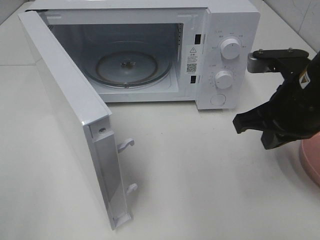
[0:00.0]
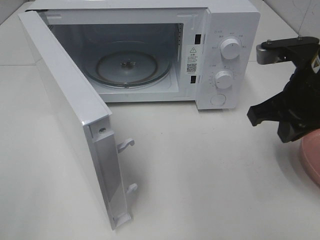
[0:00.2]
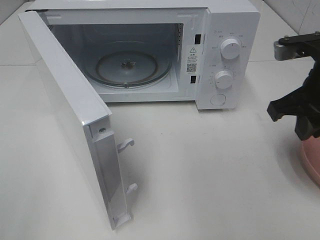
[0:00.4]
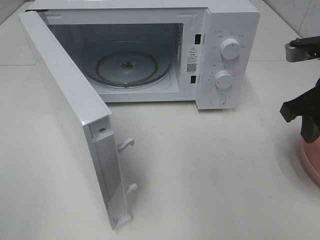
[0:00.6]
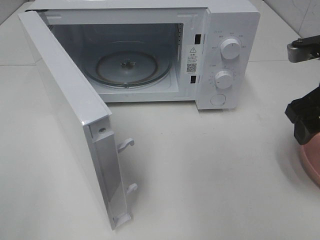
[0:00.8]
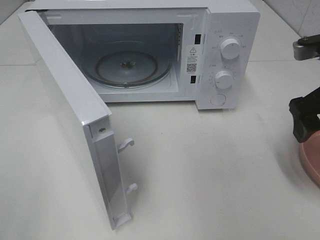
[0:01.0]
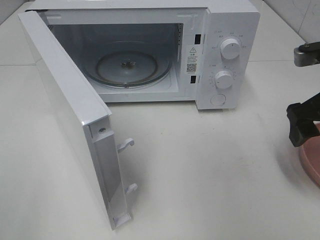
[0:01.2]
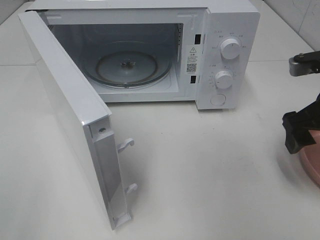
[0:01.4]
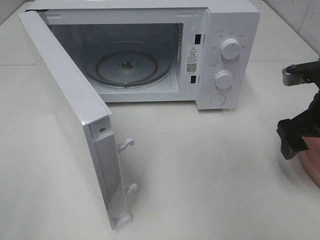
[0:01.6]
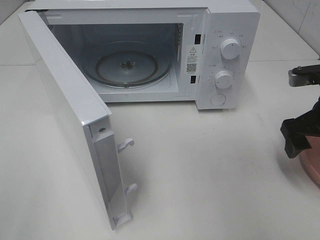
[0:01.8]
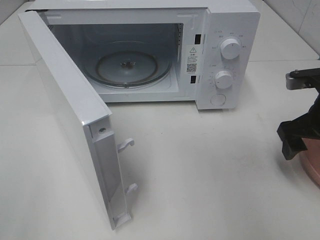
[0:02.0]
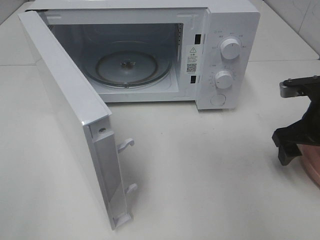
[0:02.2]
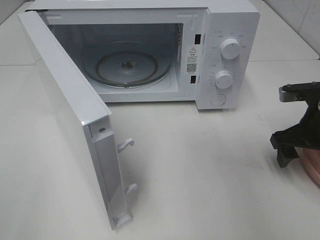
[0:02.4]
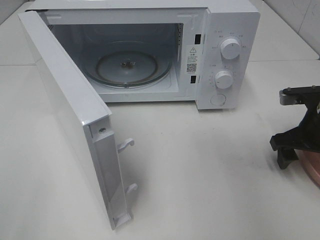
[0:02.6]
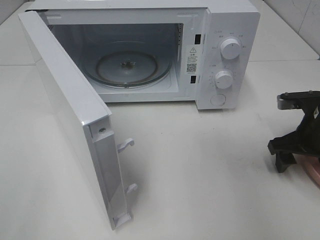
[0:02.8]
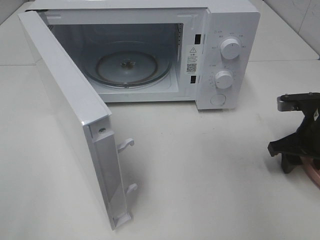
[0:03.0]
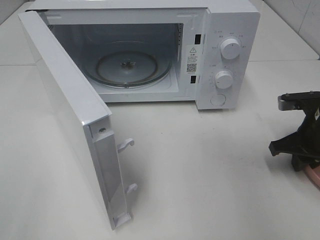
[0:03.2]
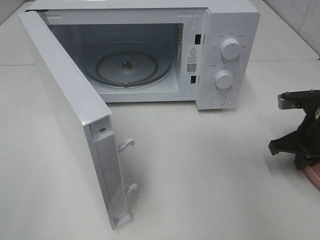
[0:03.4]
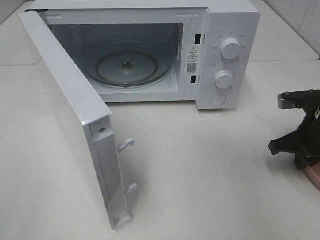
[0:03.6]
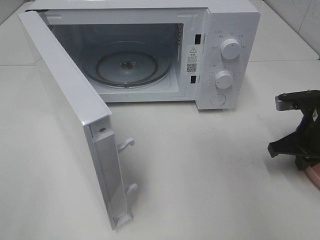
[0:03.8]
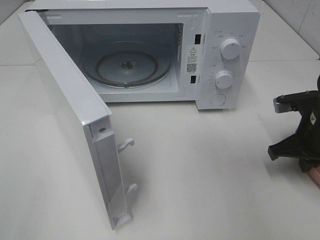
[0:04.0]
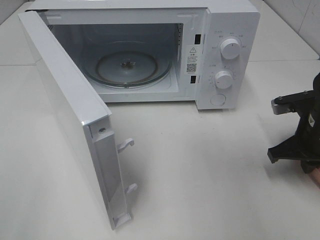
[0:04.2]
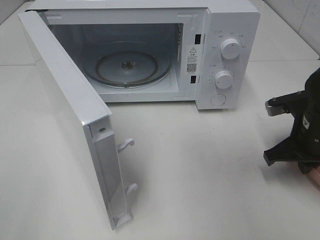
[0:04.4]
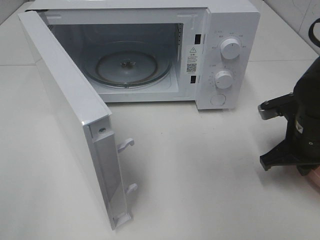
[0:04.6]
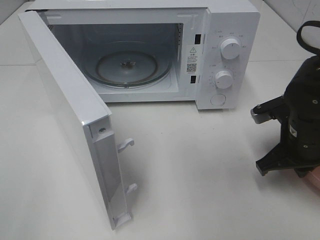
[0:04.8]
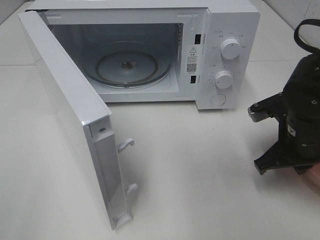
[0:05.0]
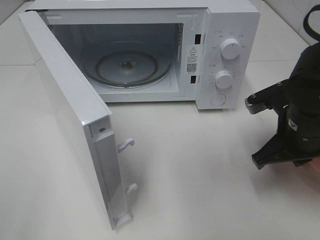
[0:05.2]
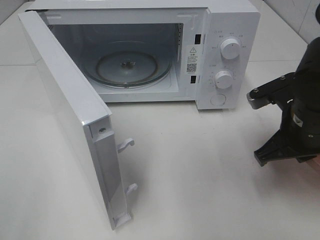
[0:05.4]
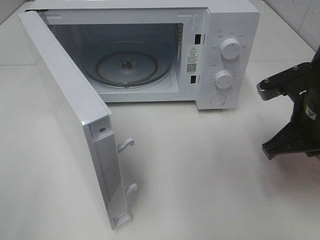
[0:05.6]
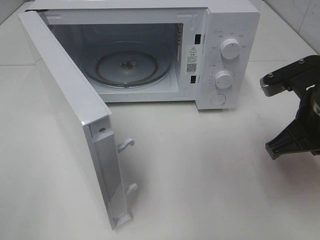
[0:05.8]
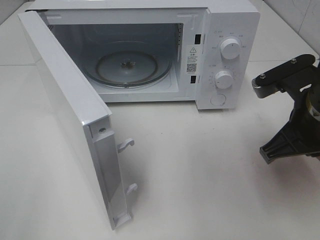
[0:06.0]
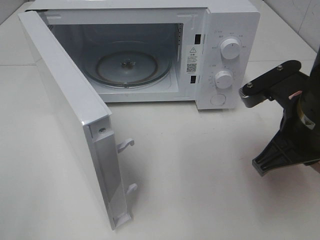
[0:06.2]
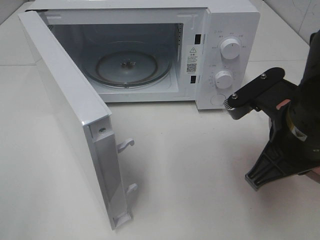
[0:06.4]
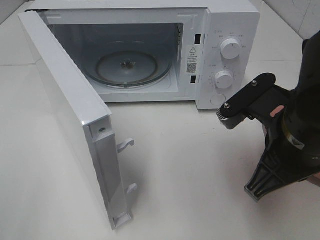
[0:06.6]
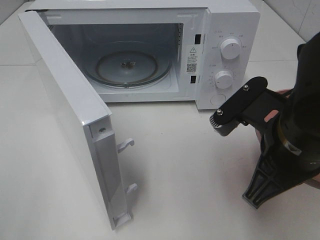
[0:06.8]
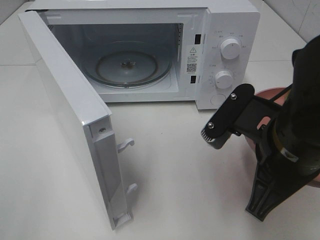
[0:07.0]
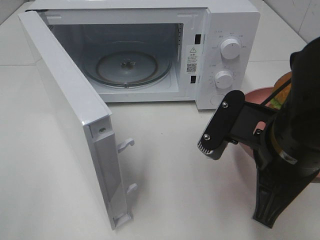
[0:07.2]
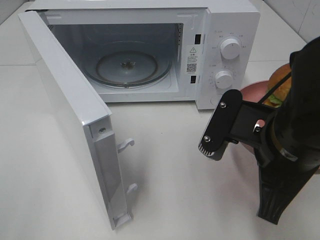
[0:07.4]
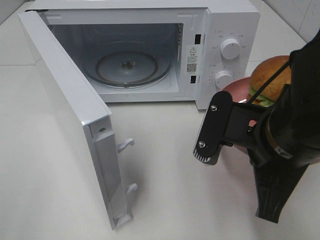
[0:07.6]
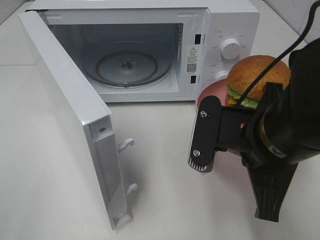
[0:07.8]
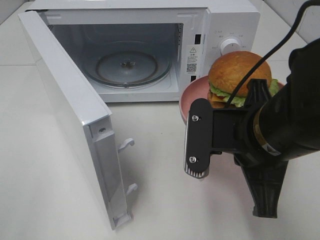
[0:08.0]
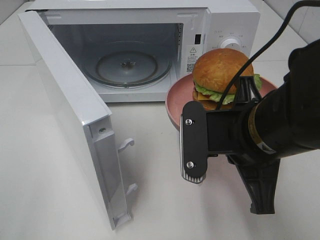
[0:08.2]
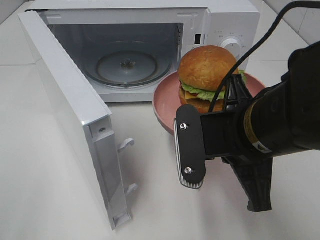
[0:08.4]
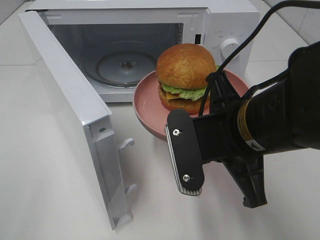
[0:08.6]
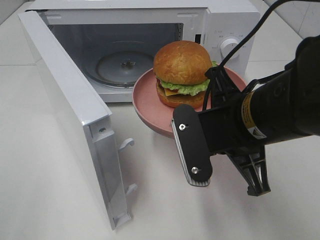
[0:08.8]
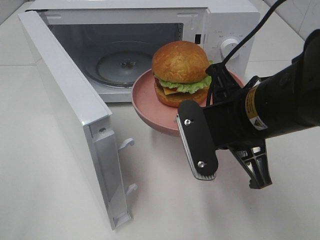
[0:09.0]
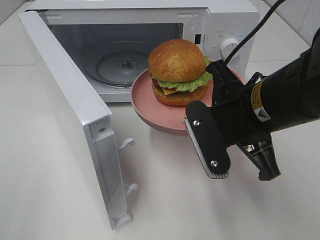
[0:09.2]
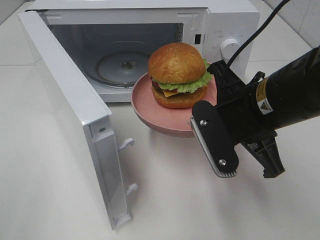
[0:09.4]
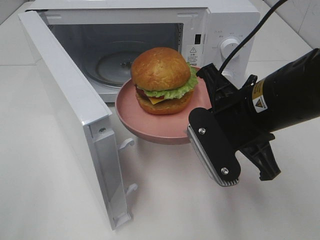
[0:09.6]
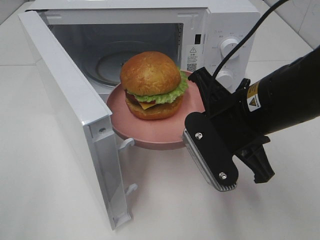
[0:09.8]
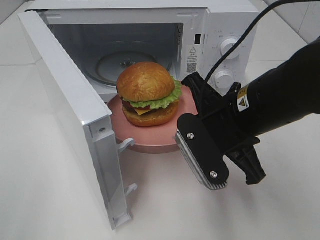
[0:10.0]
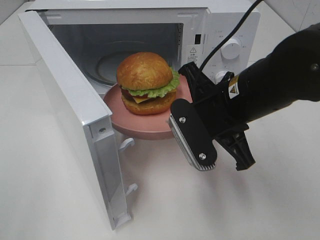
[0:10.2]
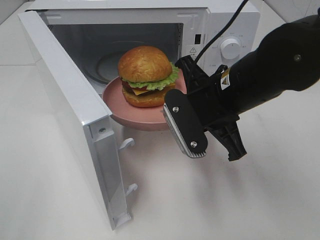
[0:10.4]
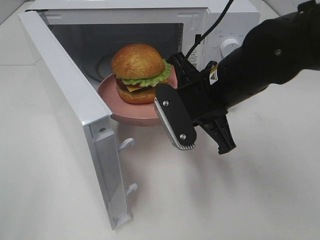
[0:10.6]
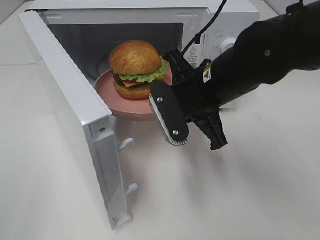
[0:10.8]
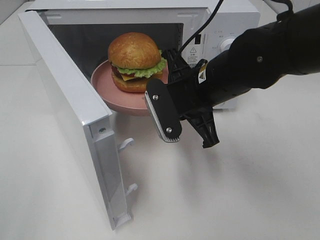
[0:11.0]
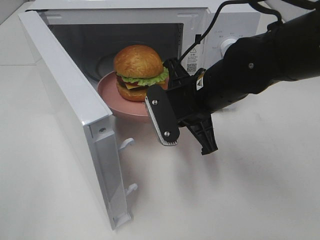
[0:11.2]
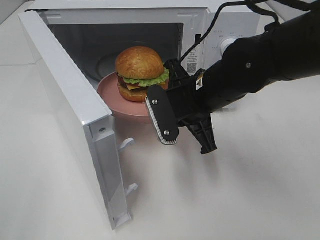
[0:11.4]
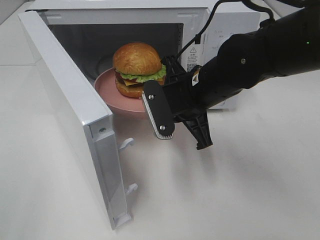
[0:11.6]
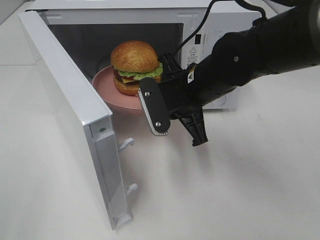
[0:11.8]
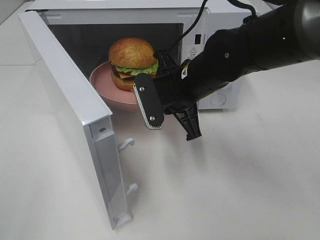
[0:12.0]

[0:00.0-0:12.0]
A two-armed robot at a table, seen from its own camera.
Task of the whole recording: Heat the burger.
Step, 0:00.0 to 0:03.6: Right hand: grab the plate with the hamburger.
0:00.0 to 0:01.6: The right gripper heads to the right, covering some 5 cm, and opens.
0:01.6 to 0:03.0: The right gripper is displaced downward by about 10 cm.
0:03.0 to 0:04.4: The right gripper closes its fingers.
0:04.4 to 0:06.0: The right gripper goes some 10 cm upward, to the left and backward.
0:06.0 to 0:07.6: The right gripper is displaced to the left by roughly 5 cm.
0:09.0 to 0:10.4: The right gripper is displaced forward by some 5 cm.
0:10.4 to 0:12.0: The right gripper goes roughly 5 cm forward.

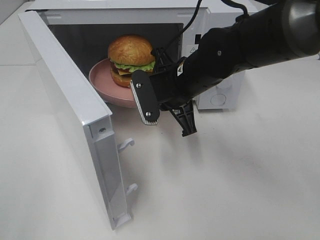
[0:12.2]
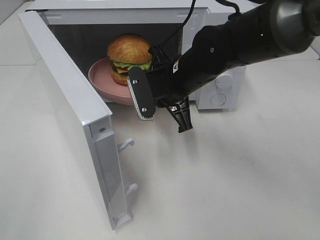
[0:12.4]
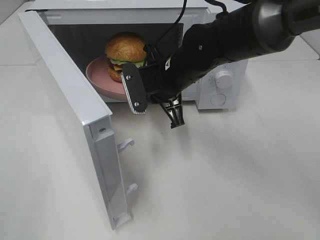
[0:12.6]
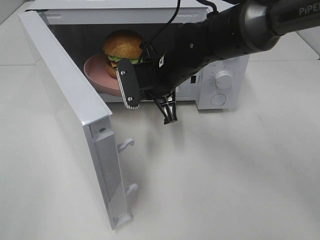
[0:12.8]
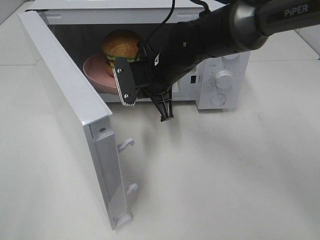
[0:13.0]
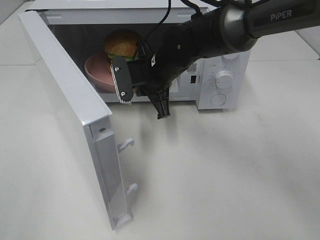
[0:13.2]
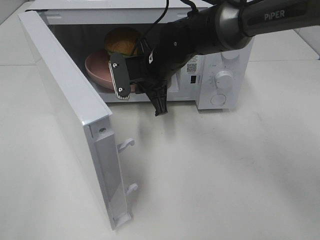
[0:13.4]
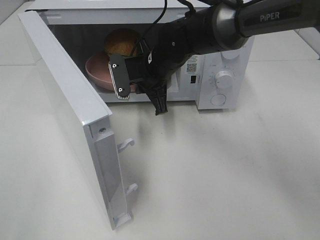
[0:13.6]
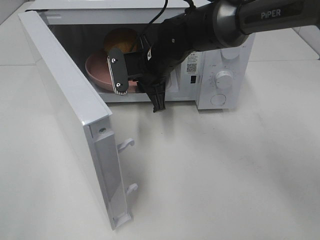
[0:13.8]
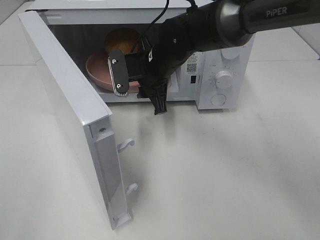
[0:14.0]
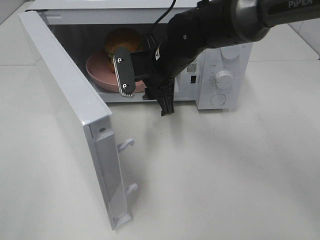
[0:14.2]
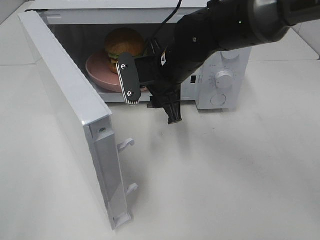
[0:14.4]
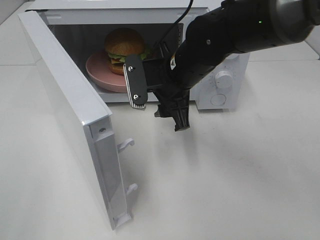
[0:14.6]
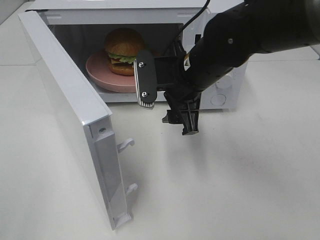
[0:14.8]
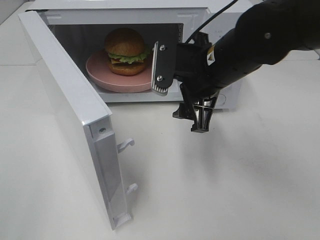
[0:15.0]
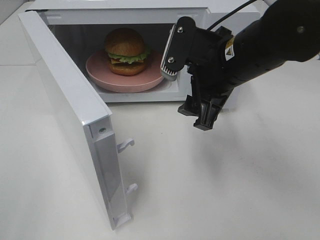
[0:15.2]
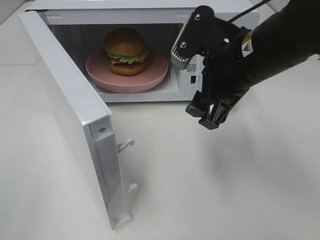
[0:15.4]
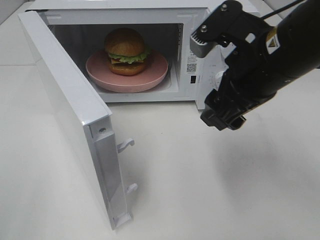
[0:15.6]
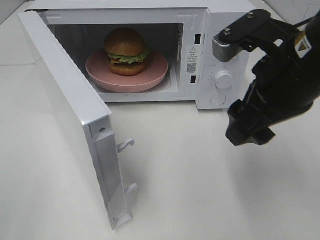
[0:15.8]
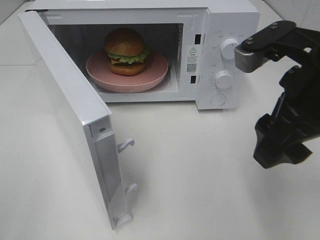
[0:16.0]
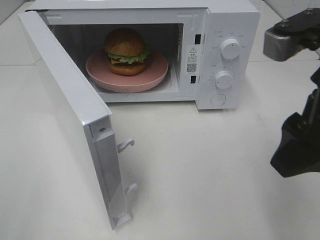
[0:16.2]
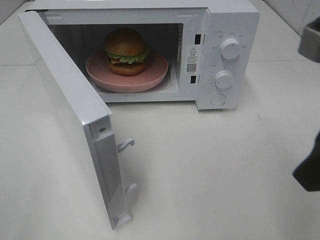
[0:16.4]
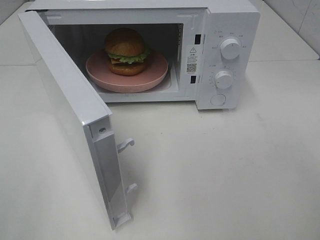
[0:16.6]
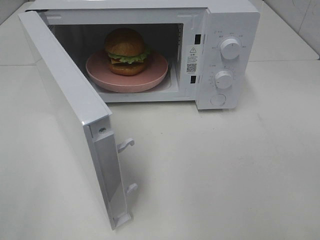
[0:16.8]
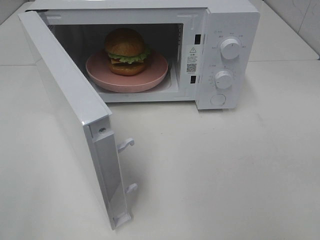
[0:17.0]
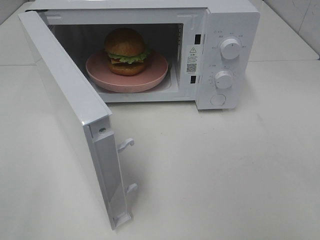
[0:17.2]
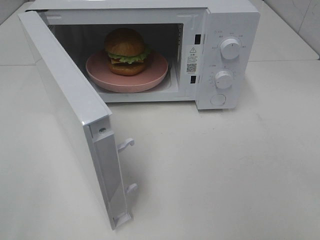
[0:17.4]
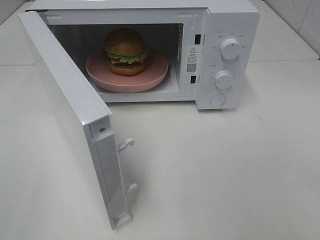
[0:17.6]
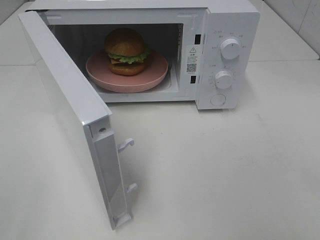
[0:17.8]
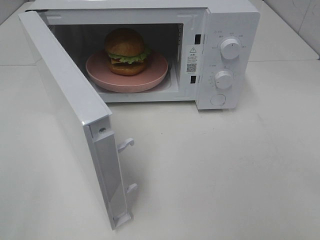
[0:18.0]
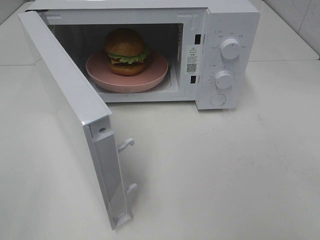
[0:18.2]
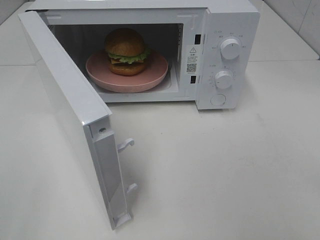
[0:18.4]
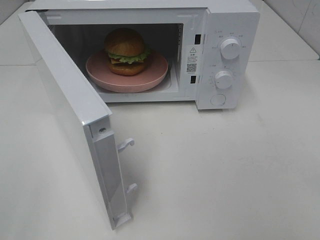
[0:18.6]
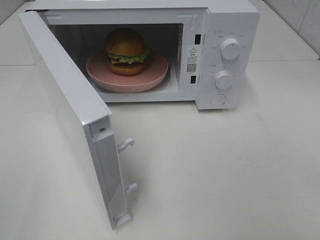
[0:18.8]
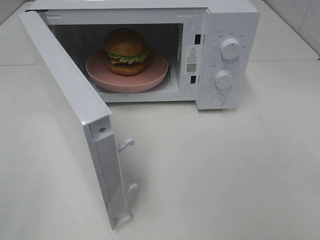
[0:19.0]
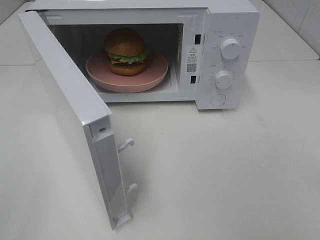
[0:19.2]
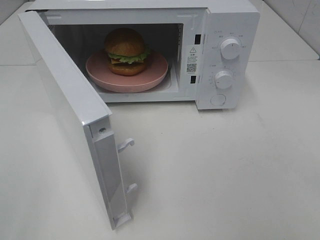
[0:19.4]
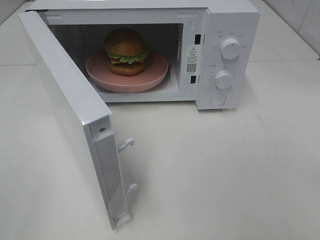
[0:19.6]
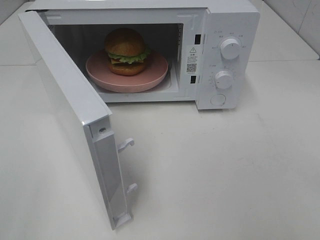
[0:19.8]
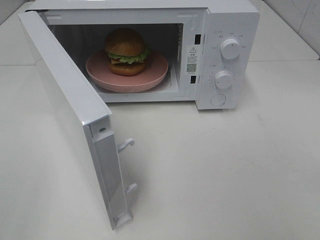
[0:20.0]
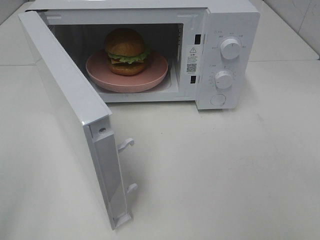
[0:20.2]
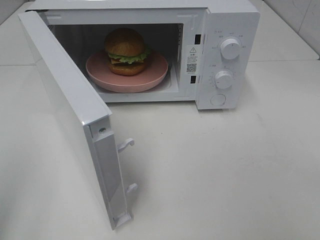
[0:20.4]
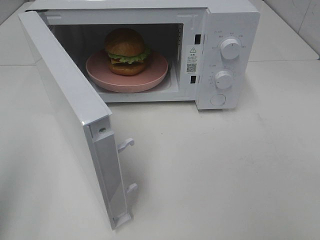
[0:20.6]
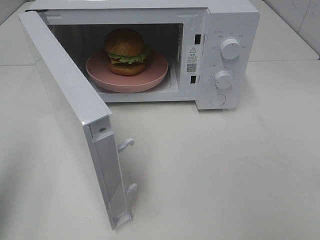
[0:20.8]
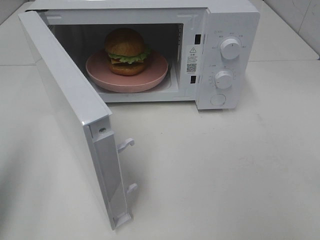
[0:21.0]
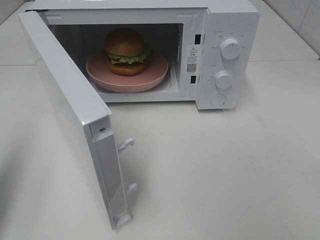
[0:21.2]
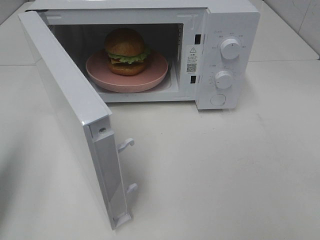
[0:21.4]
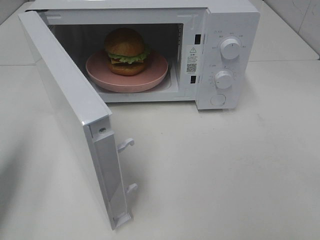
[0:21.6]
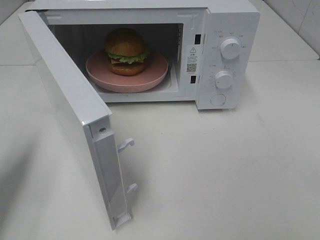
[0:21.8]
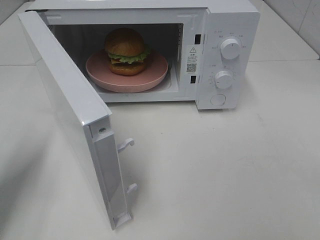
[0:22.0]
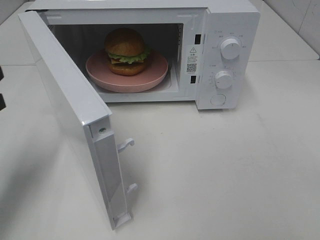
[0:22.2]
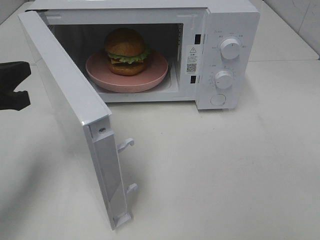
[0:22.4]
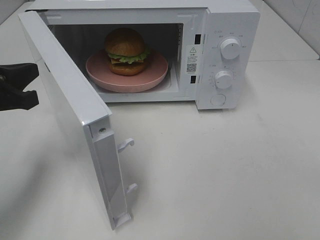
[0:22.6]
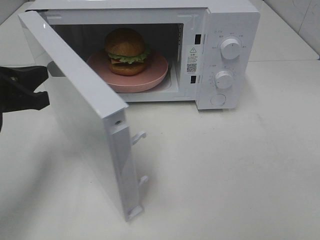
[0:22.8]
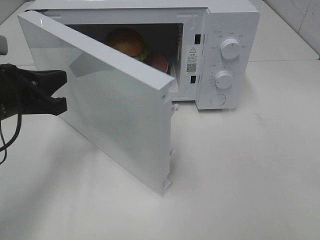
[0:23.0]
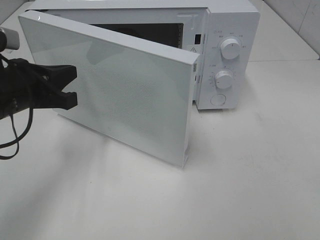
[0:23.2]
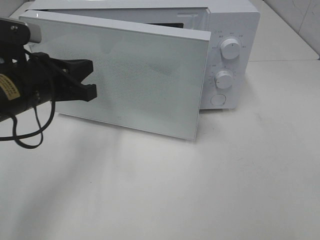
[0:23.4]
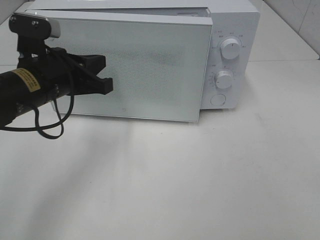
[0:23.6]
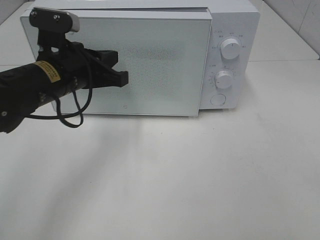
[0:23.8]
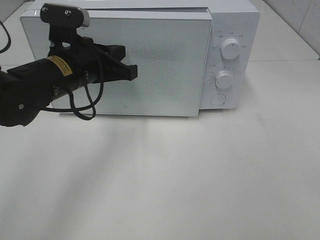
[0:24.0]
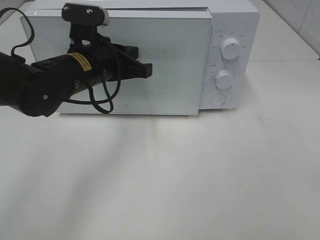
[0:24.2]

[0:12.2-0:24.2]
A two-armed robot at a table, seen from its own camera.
Task of the whole recording: Heat the burger.
0:12.2 to 0:13.8: The right gripper goes roughly 5 cm forward.
0:13.8 to 0:15.2: The right gripper heads backward, to the right and upward, covering about 15 cm, and opens.
0:15.2 to 0:16.6: The right gripper goes about 25 cm backward, to the right and upward.
0:18.2 to 0:19.8: The two grippers keep their place.
0:19.8 to 0:21.2: The left gripper is displaced forward by roughly 15 cm, and closes.
0:21.2 to 0:22.6: The left gripper travels forward, to the right and downward by approximately 15 cm.
0:22.6 to 0:24.2: The left gripper heads to the right and forward, covering approximately 20 cm.
